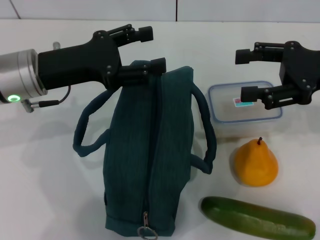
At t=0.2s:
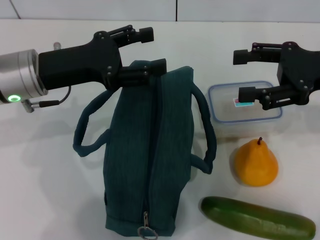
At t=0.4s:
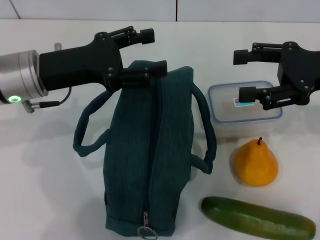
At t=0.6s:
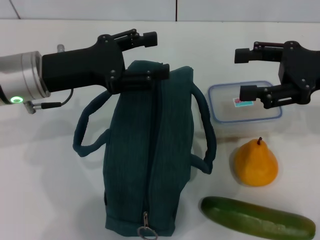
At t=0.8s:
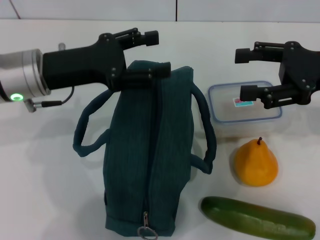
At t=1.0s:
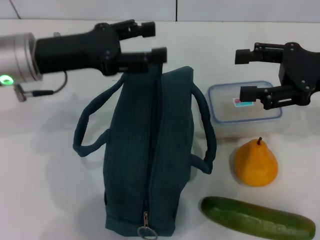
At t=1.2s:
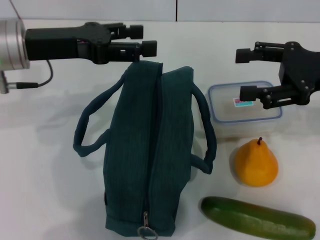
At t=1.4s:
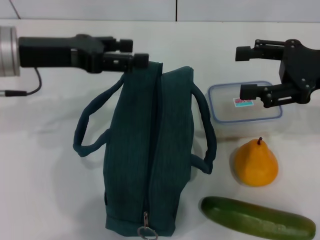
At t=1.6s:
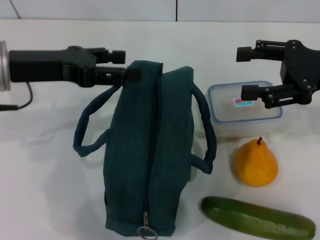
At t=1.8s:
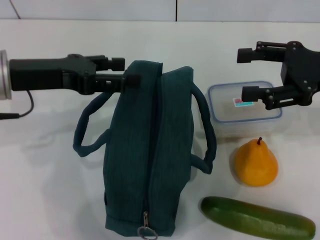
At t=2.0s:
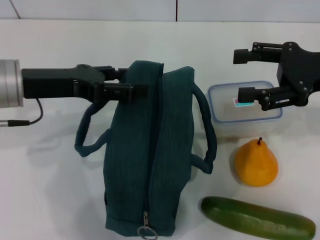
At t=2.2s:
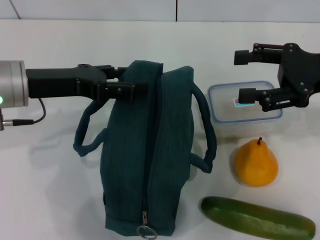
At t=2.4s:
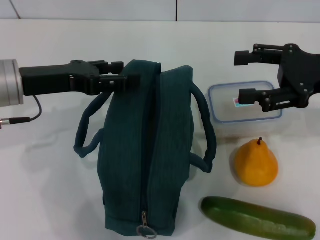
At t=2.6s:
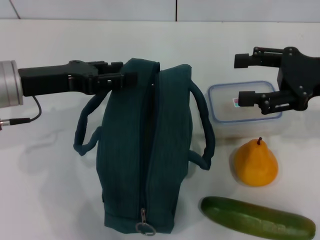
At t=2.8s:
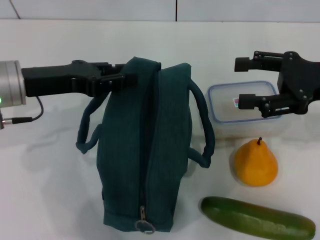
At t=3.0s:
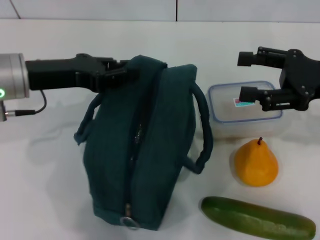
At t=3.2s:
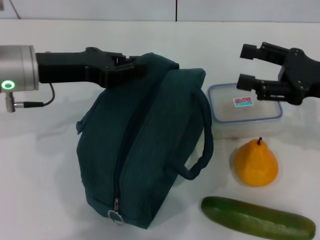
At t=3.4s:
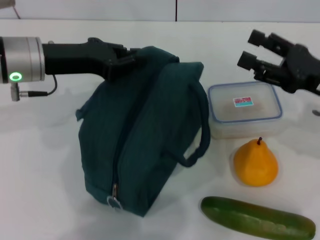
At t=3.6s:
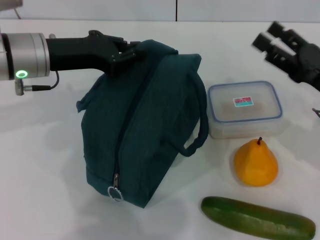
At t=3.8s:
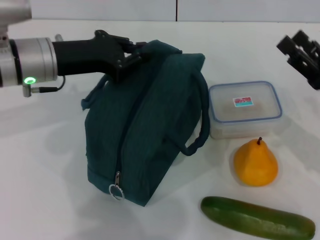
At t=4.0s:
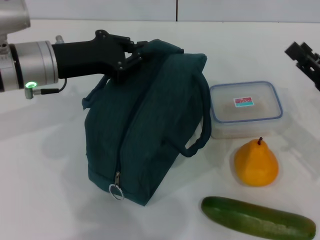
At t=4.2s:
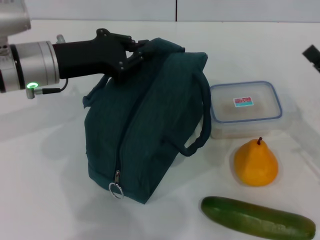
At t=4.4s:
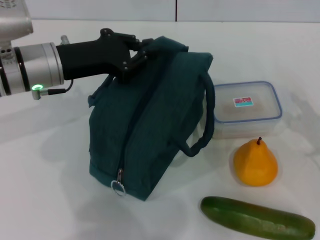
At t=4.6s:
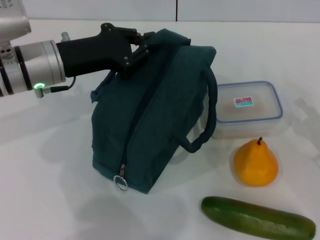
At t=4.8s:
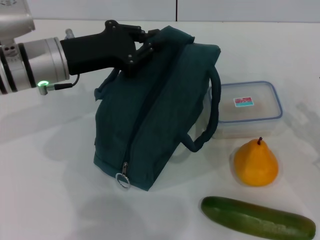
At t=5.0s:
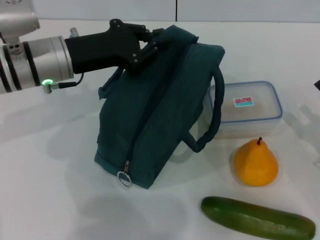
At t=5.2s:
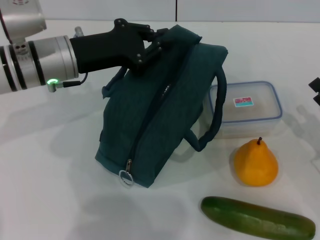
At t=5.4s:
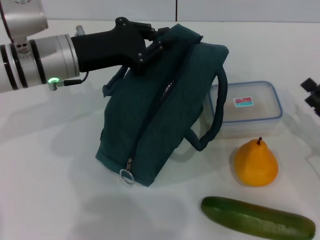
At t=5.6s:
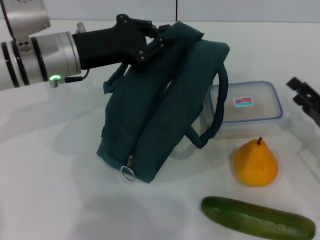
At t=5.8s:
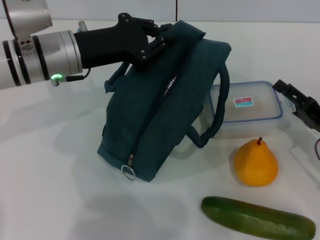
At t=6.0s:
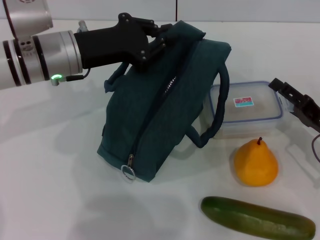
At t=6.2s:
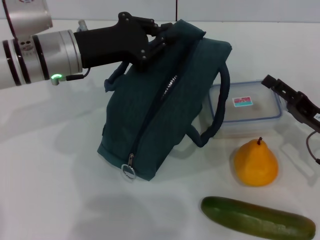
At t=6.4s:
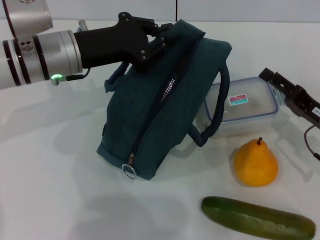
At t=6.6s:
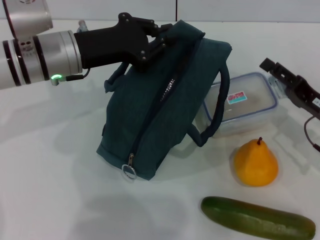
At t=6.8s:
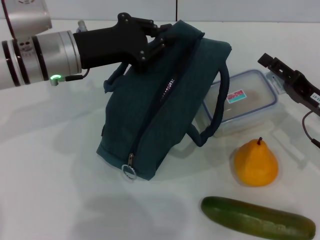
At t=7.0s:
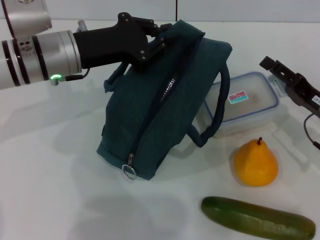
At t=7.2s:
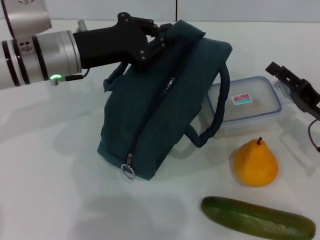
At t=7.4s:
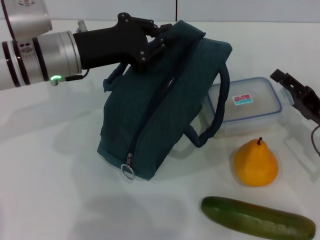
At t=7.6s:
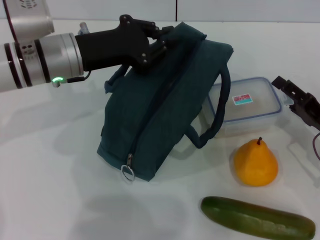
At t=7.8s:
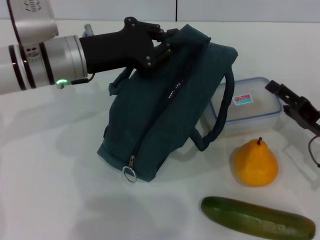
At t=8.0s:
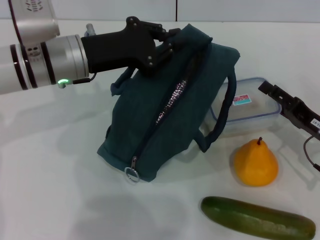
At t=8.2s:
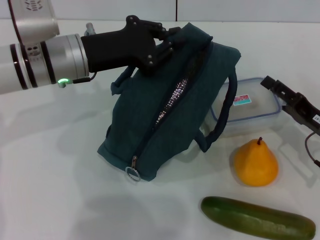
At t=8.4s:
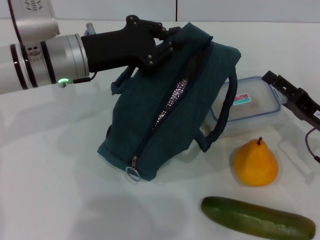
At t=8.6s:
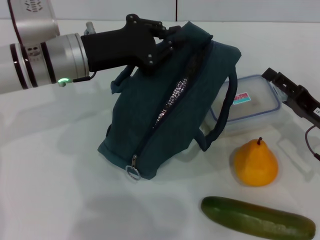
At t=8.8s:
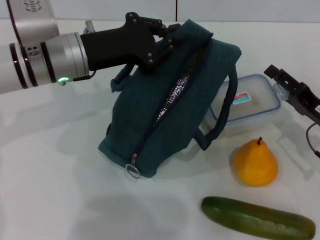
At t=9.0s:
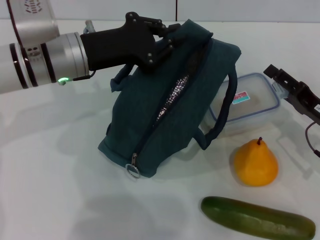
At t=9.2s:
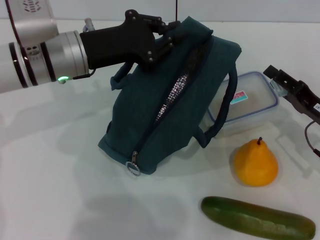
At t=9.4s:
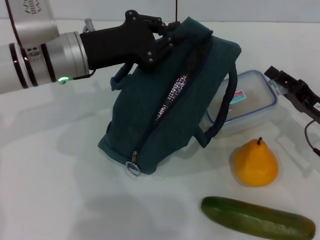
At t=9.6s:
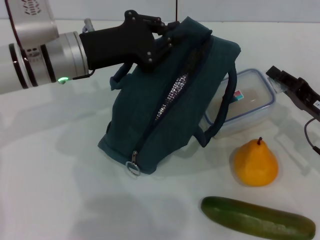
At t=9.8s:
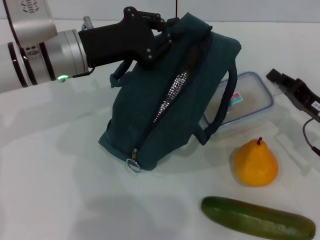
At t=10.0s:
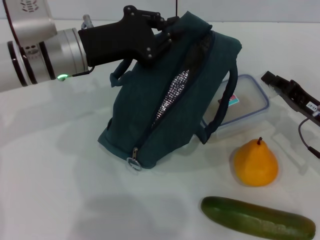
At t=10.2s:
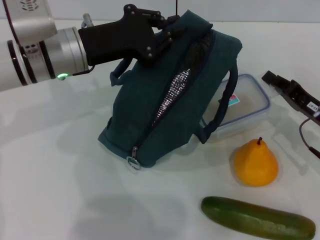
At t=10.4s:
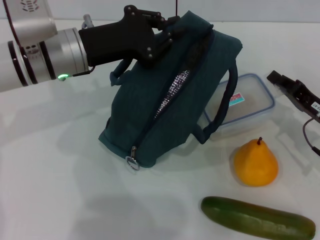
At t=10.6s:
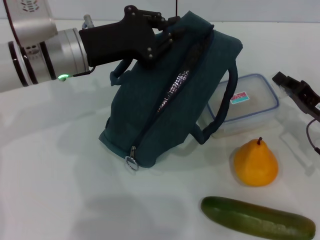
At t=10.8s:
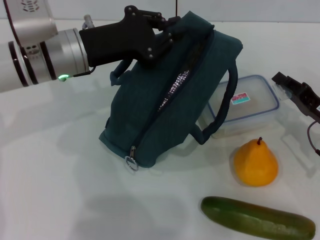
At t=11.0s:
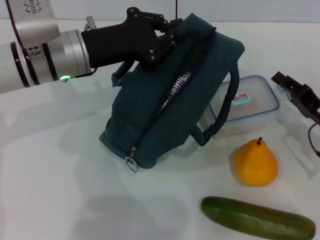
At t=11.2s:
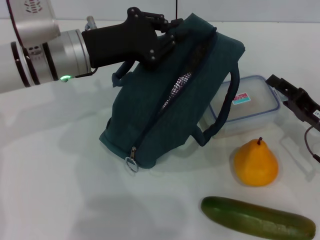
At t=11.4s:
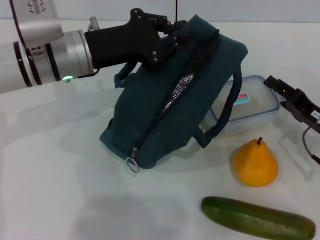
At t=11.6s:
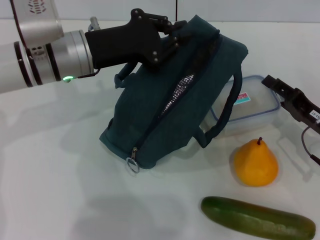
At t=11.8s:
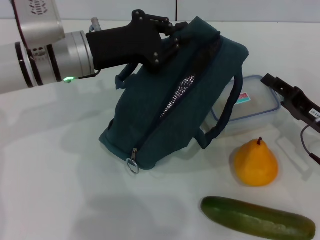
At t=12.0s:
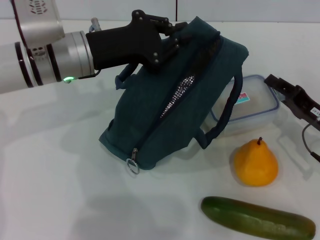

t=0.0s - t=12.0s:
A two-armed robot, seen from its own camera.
Step, t=0.0s - t=3.0s: Hold the lunch bag with your left hand.
t=0.0s - t=1.6s: The left gripper moves about 5 cm.
t=1.6s - t=3.0s: The grippers make only small movements.
t=3.0s - t=4.4s: The right gripper moves downward and backward, some 15 cm. Meanwhile the left gripper closes its fingers.
t=4.4s - t=6.0s: The right gripper ends up approximately 5 cm from where it was.
t=6.0s - t=9.0s: The grippers move only a little.
t=9.0s - t=10.4s: The right gripper closes its fingers.
t=10.4s - t=12.0s: The right gripper opens up.

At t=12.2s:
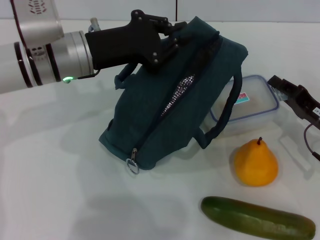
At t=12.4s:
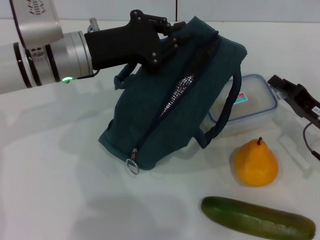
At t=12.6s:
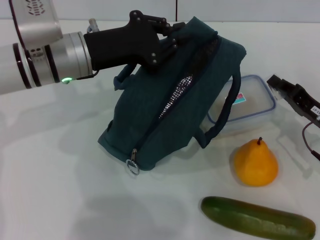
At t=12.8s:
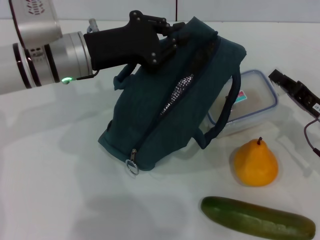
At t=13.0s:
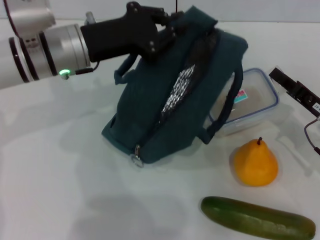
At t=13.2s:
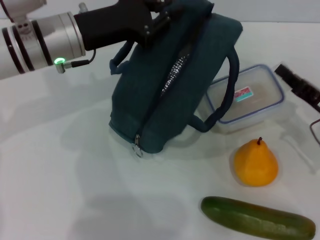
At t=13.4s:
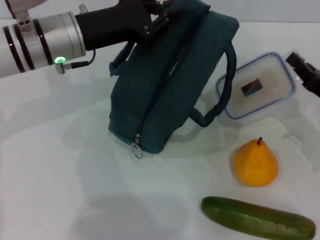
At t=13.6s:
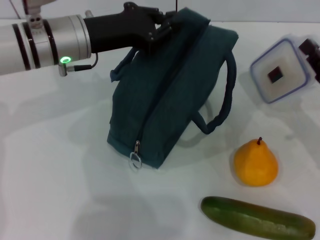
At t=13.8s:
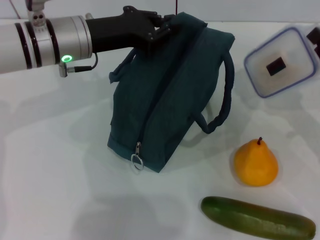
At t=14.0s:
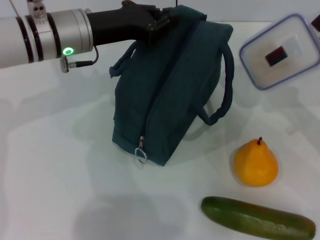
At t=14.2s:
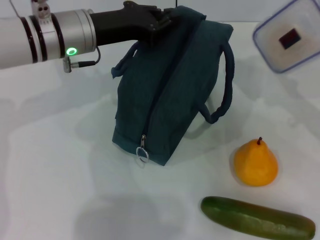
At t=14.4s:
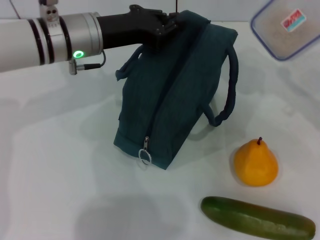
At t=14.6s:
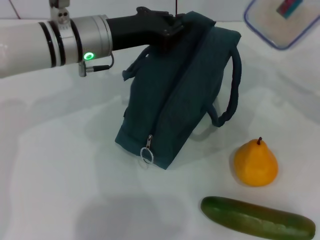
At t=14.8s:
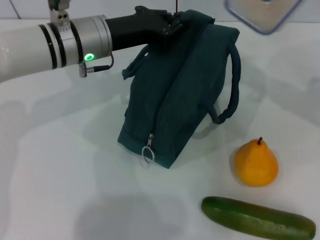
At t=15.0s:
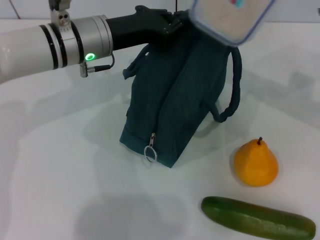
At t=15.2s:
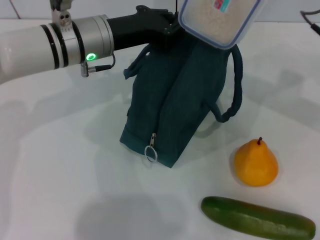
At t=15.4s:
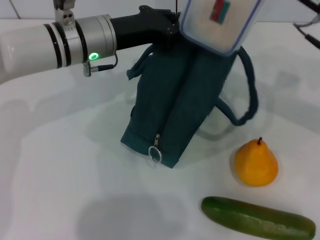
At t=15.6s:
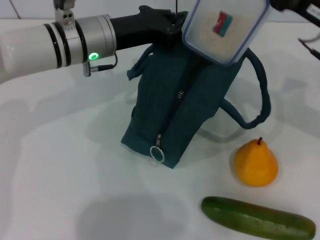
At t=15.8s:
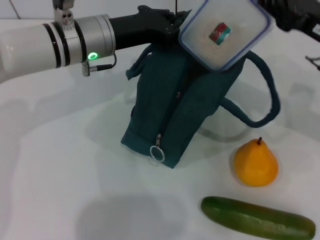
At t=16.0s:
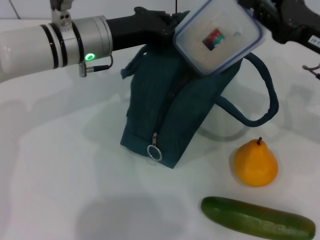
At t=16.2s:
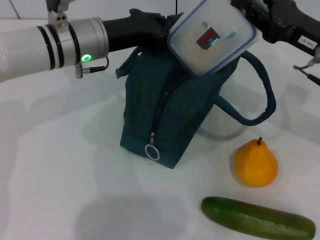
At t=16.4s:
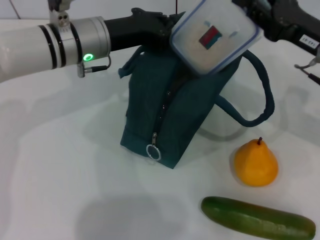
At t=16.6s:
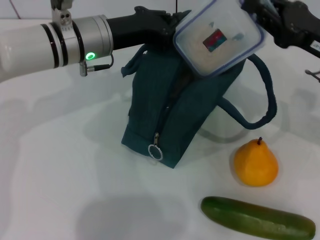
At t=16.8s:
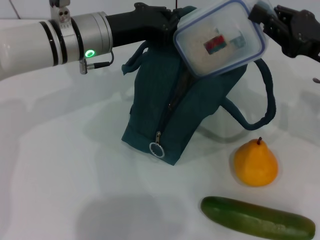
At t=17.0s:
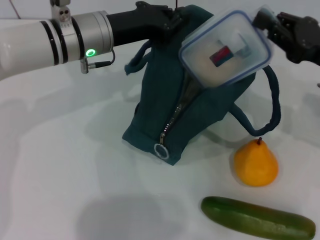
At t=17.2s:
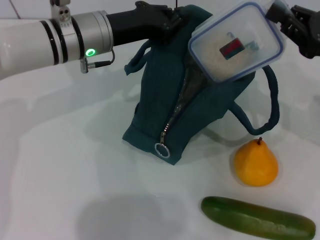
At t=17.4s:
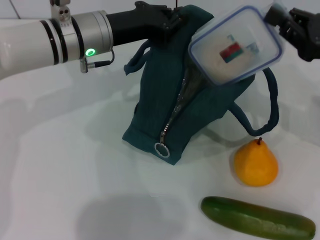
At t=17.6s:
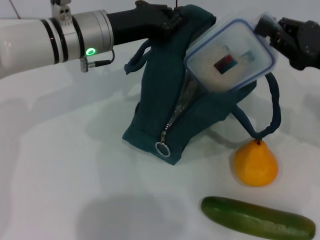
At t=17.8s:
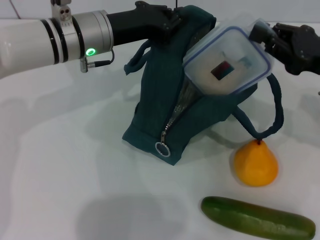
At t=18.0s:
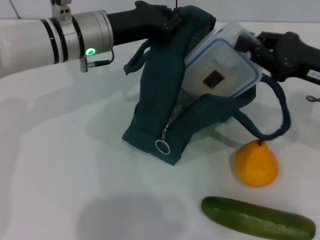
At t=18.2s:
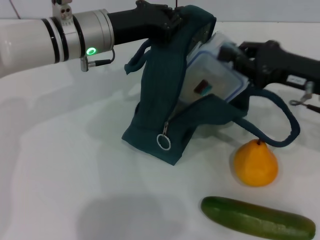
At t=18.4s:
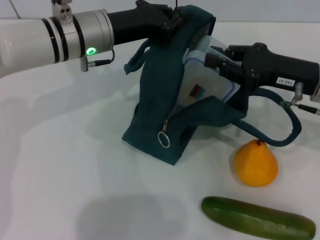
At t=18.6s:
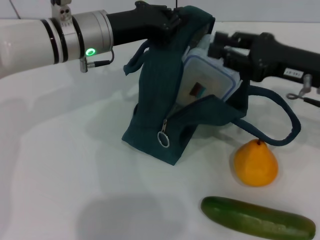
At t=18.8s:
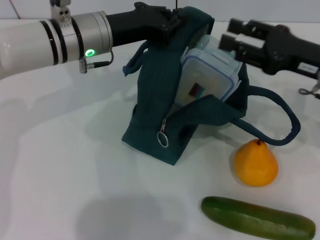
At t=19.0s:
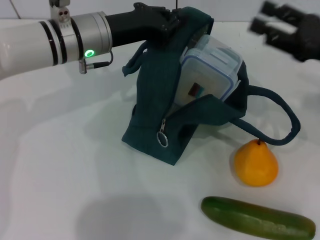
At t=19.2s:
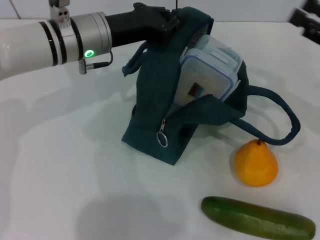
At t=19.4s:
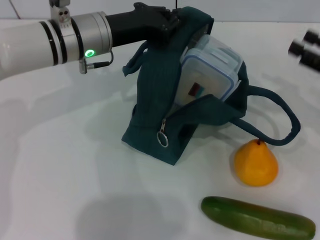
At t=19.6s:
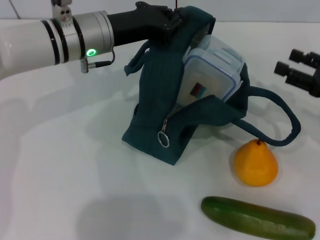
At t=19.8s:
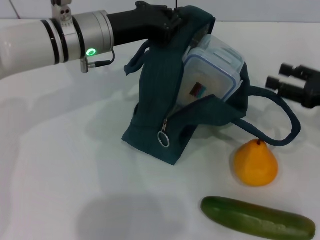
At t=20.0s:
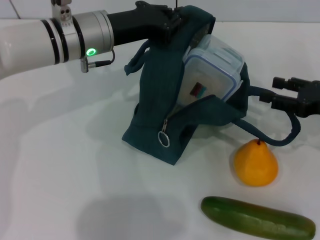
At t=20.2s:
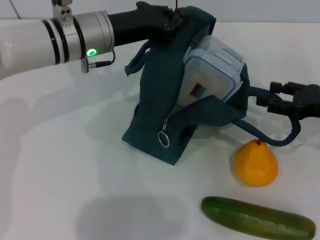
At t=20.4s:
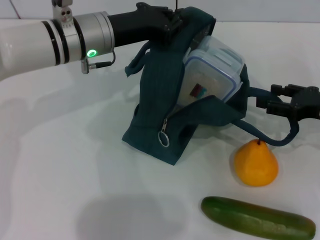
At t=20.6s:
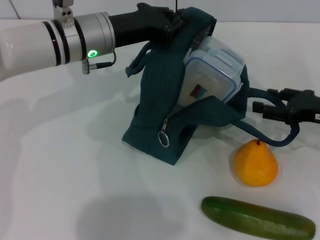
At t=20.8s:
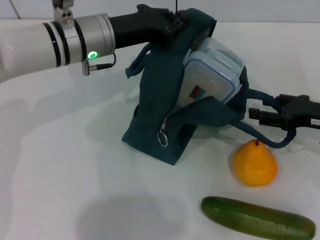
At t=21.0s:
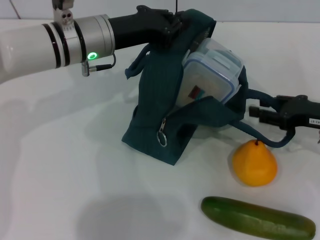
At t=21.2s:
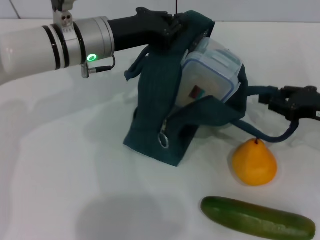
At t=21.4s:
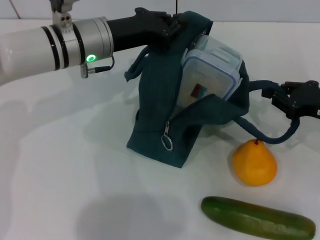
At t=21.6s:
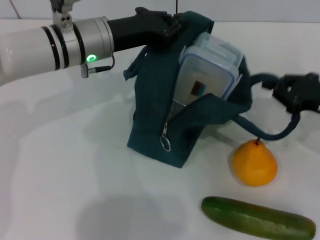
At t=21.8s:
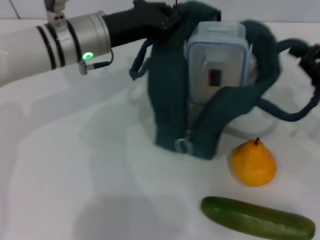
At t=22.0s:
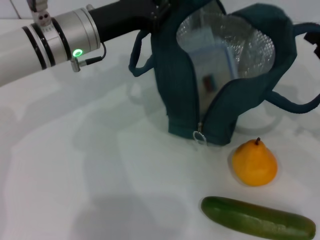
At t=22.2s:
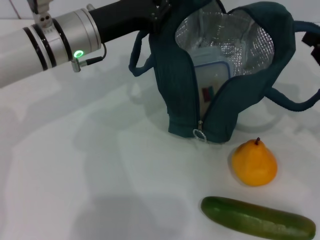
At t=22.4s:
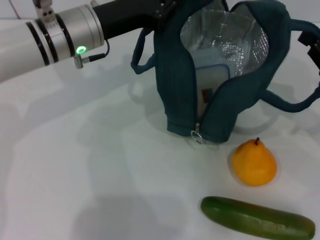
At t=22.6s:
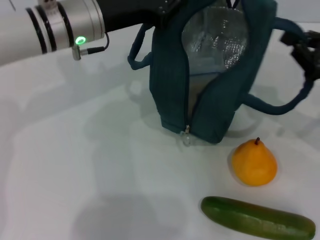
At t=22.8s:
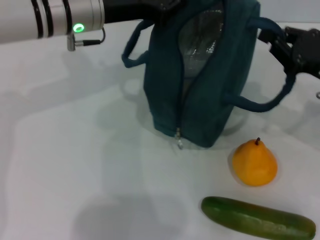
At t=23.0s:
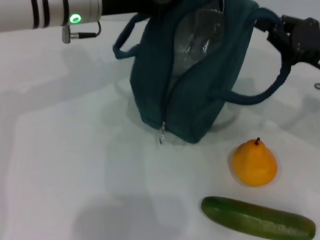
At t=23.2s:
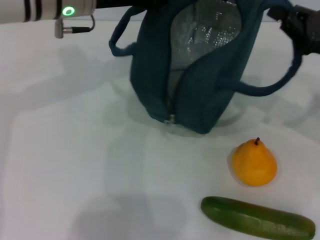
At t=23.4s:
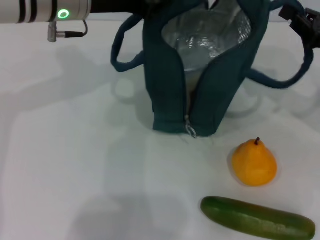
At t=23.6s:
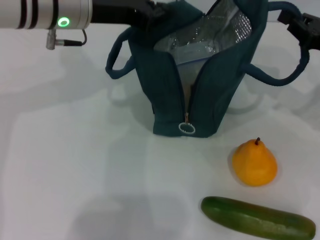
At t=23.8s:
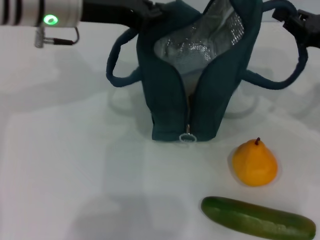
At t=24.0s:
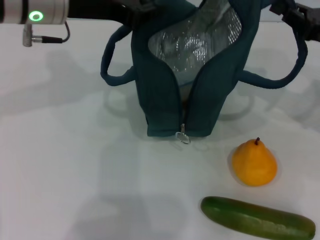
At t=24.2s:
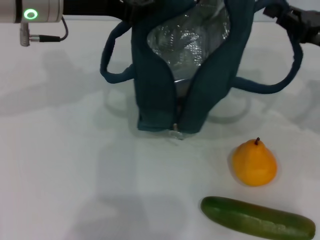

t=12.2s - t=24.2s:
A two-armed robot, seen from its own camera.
Step, t=12.8s - t=18.6s: Place the lunch box into the lunch bag with your right hand.
t=12.2s - t=13.8s: The right gripper ends up about 5 cm from where it was.
t=13.8s - t=15.2s: The right gripper shifts approximately 15 cm upward, forward and to the left.
t=15.2s - t=16.6s: The right gripper travels downward by approximately 5 cm.
t=18.2s - t=19.8s: The right gripper goes some 10 cm to the right, and opens up.
t=19.8s - t=21.2s: There are only small adjustments of the grippers.
t=21.2s - t=22.6s: The right gripper closes.
t=22.6s - t=24.2s: The left gripper goes approximately 5 cm upward; the right gripper shifts by approximately 5 cm.
